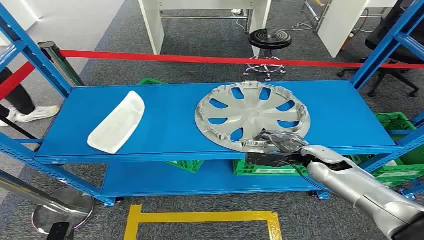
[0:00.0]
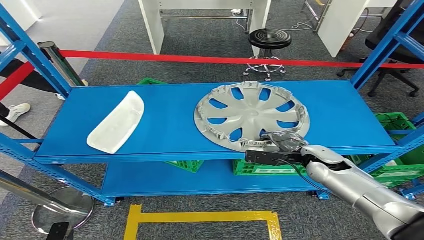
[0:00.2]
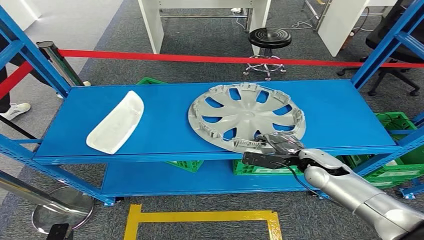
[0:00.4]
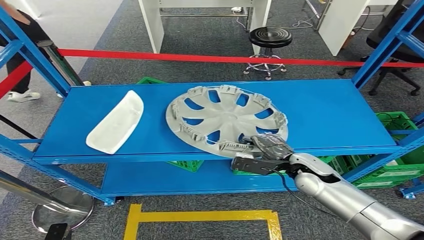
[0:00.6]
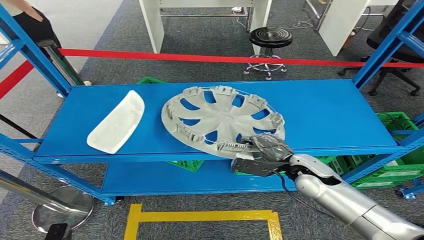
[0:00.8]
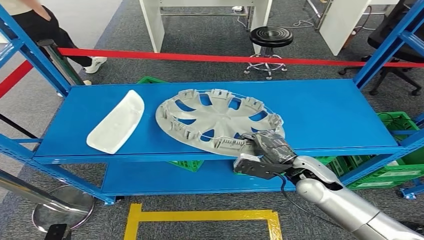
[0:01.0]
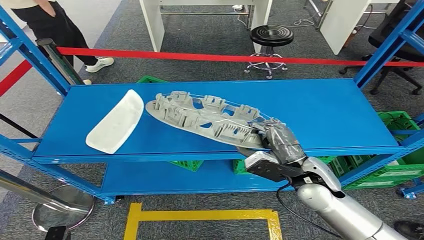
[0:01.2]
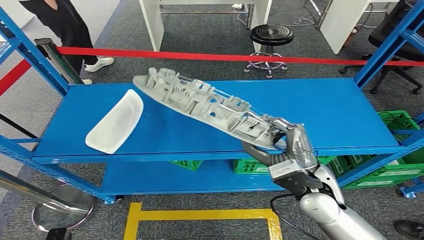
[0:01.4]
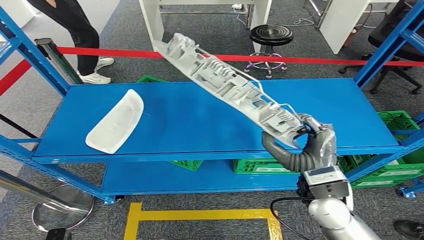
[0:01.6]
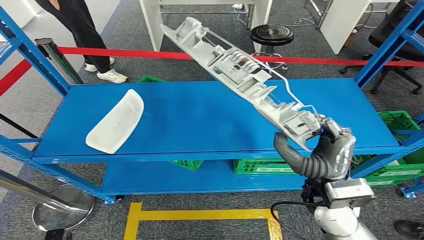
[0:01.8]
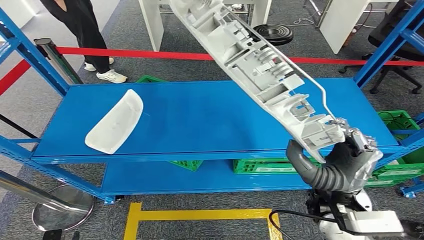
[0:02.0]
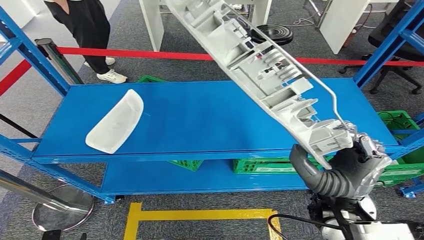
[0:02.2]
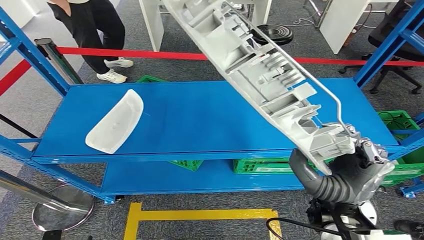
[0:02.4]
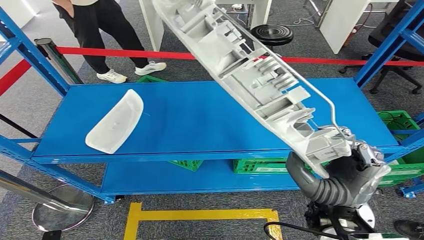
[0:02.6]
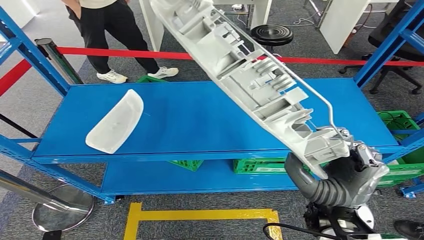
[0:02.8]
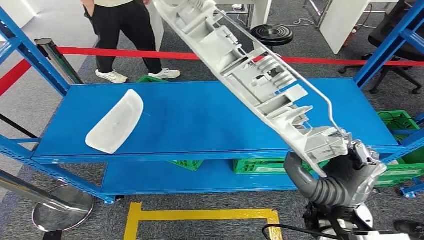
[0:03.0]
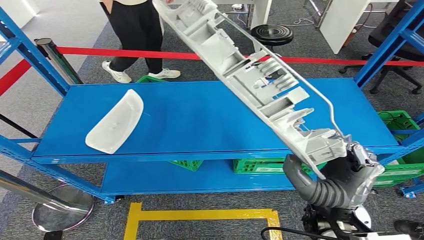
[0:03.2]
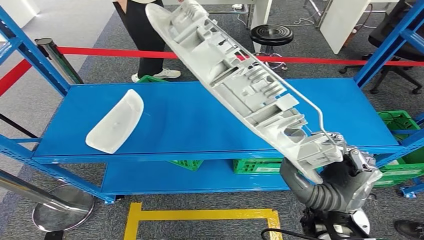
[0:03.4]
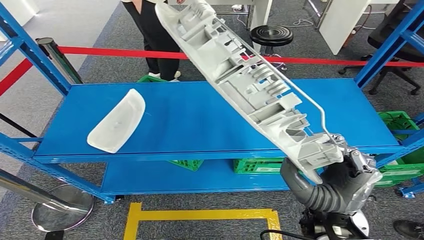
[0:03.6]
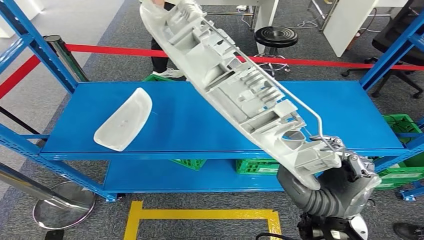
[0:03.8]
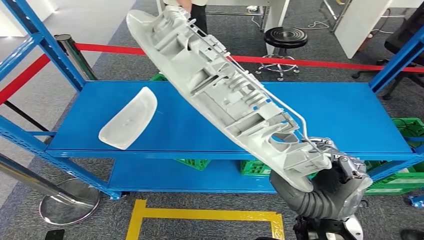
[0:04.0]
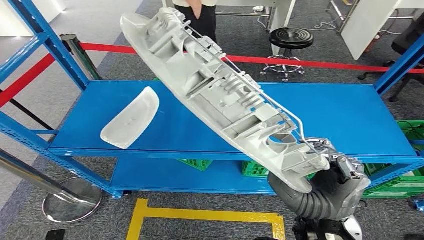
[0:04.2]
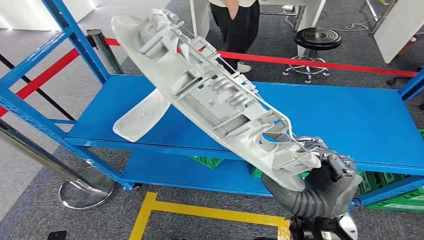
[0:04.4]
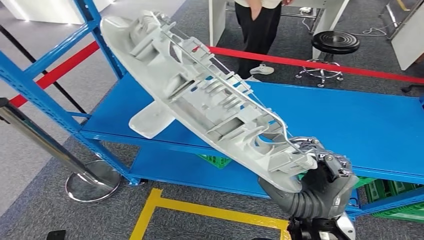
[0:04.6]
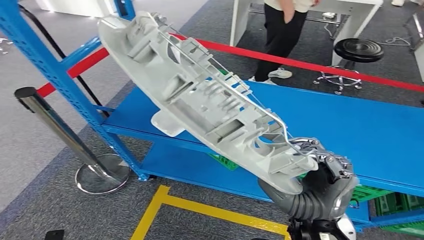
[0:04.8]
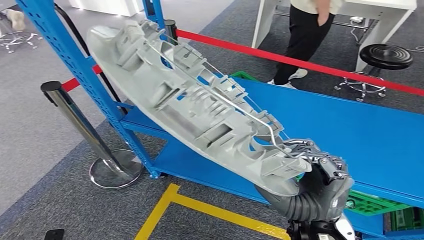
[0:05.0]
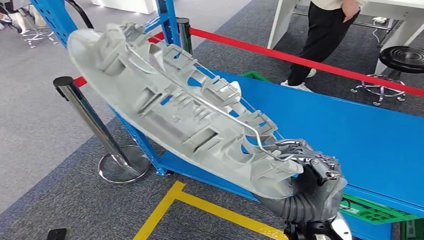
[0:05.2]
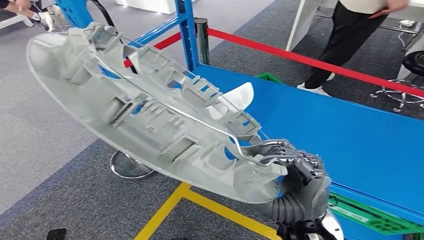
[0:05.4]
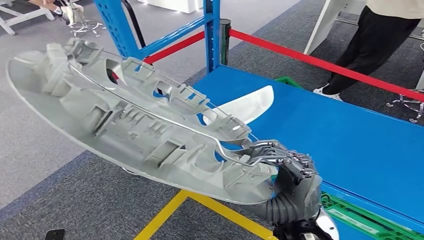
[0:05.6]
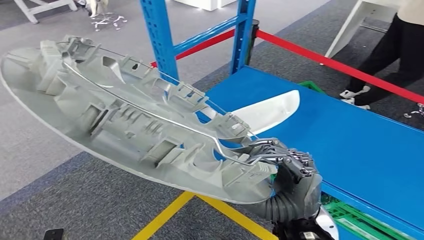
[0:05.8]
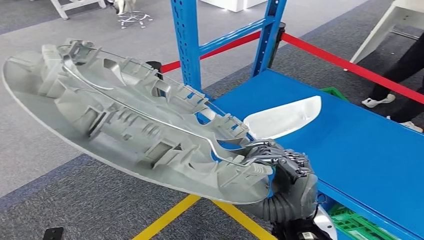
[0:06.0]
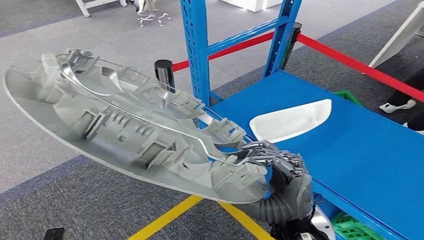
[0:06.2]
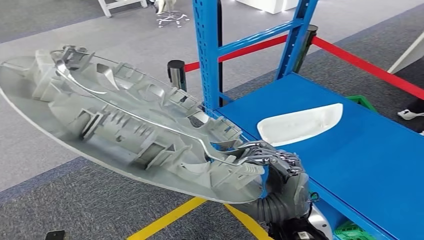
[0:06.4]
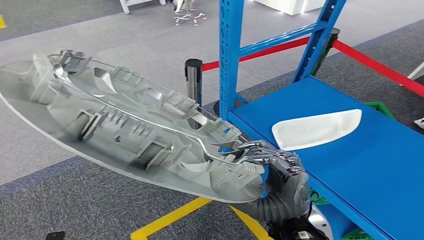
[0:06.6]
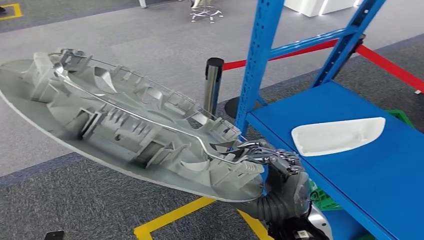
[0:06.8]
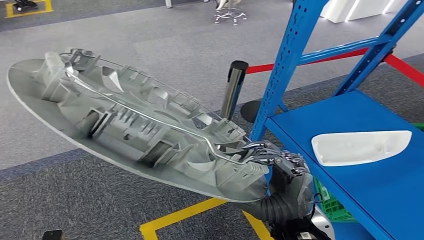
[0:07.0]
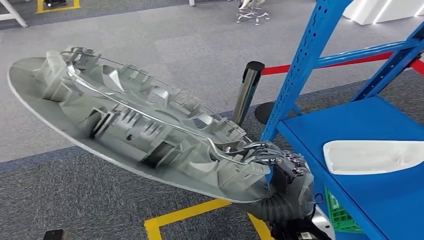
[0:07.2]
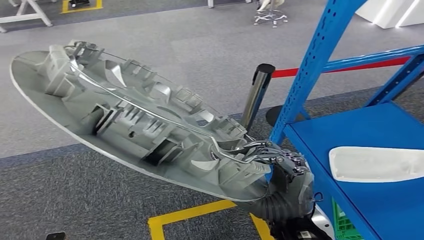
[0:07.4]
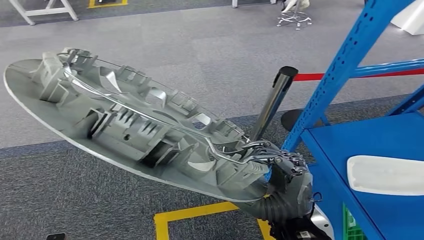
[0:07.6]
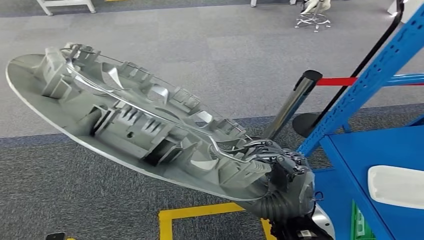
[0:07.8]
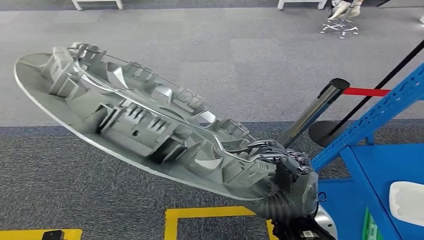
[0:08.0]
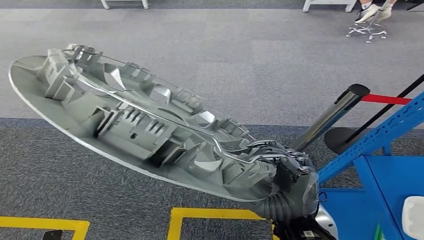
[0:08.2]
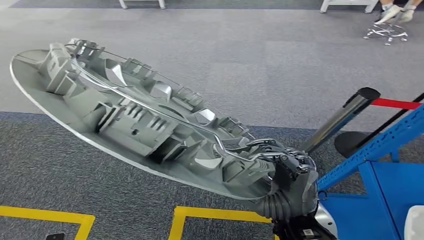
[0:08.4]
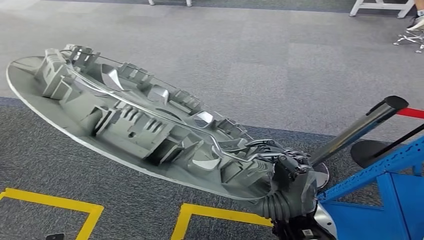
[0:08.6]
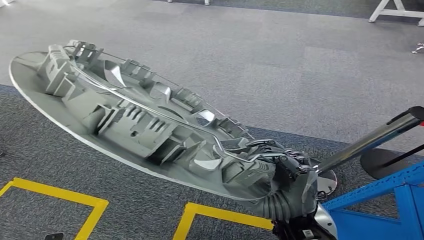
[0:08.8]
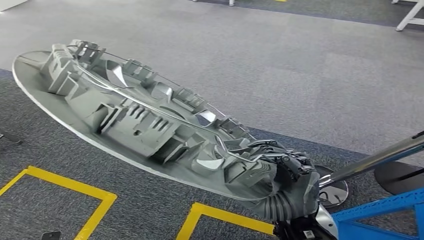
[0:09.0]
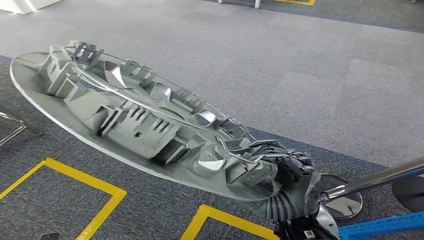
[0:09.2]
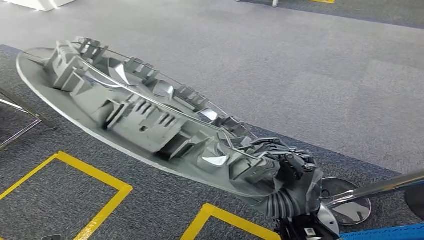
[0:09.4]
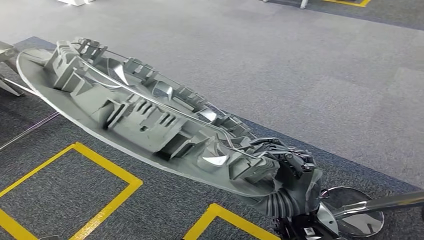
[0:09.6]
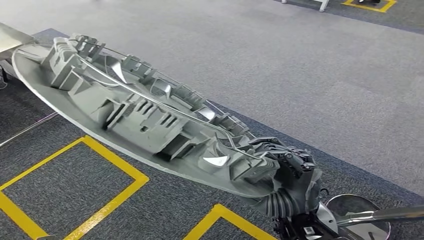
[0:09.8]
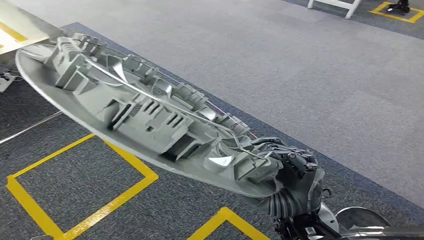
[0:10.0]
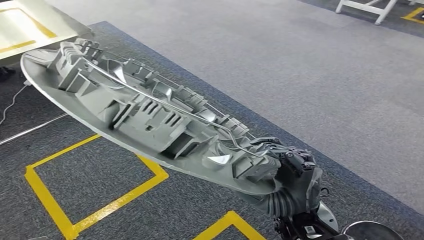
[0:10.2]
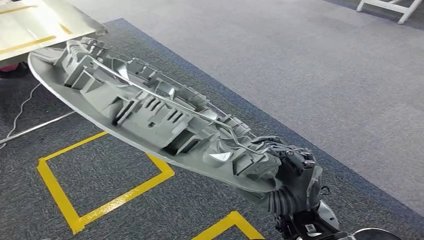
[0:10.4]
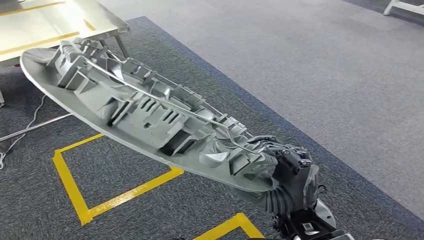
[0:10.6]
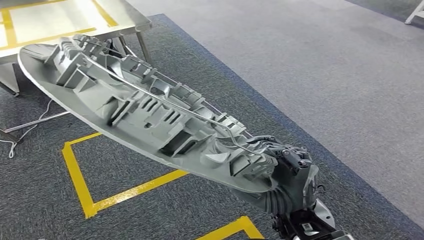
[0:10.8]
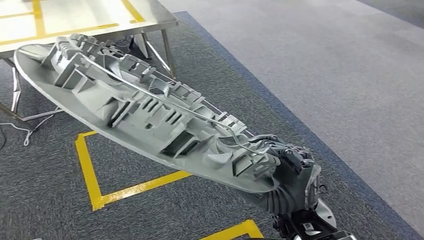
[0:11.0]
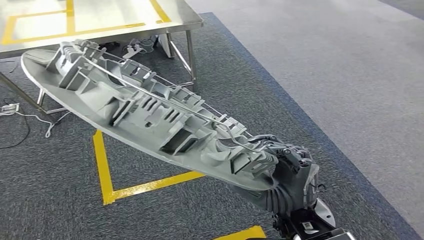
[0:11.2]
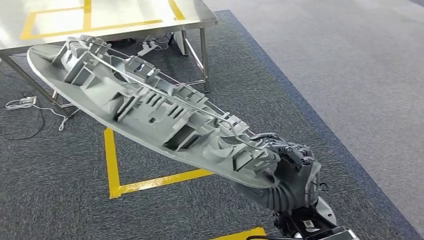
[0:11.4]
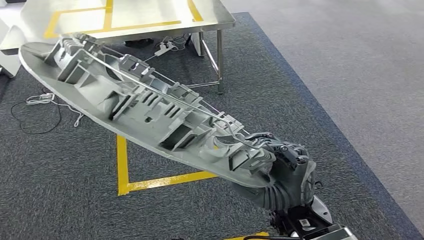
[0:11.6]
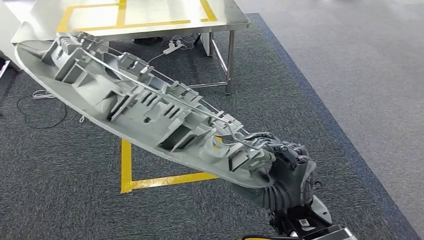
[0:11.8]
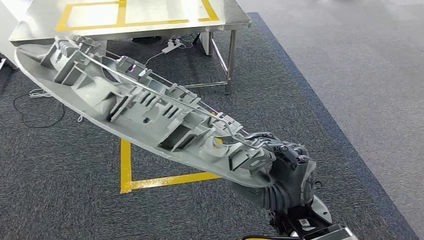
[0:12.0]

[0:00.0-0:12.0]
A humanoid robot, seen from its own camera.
Step, 0:00.0 to 0:02.6: Pick up the small component from the shelf.

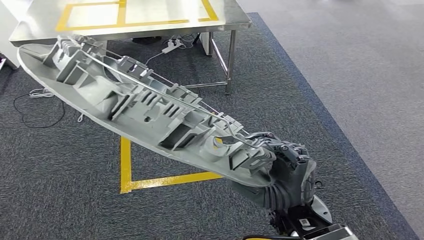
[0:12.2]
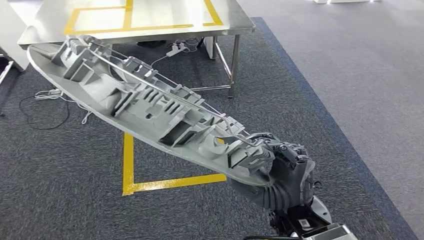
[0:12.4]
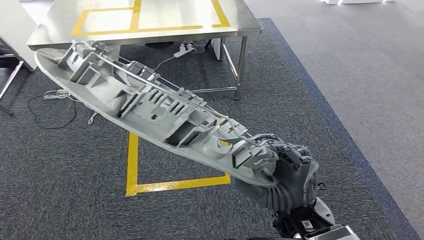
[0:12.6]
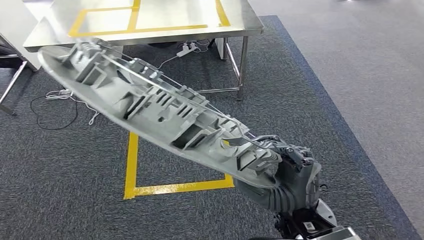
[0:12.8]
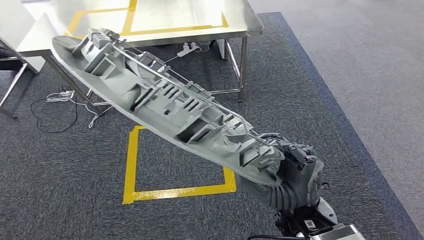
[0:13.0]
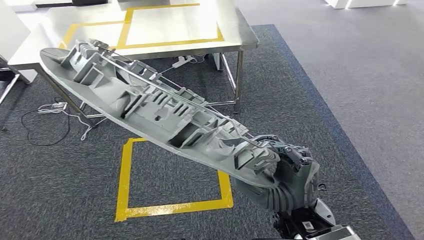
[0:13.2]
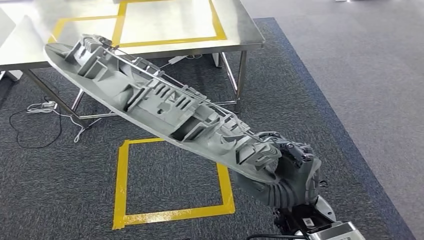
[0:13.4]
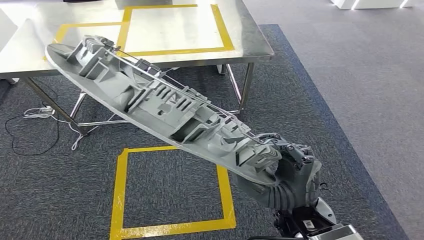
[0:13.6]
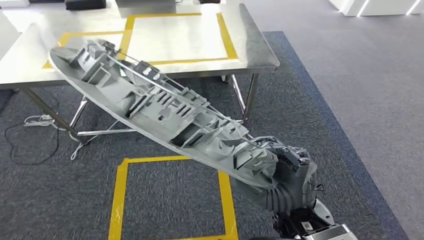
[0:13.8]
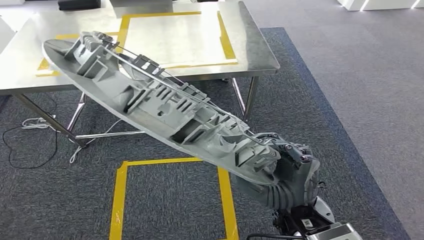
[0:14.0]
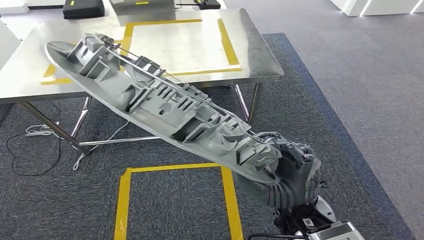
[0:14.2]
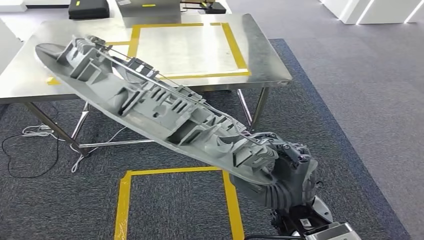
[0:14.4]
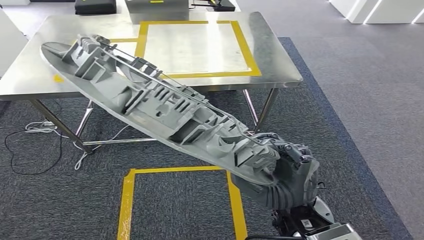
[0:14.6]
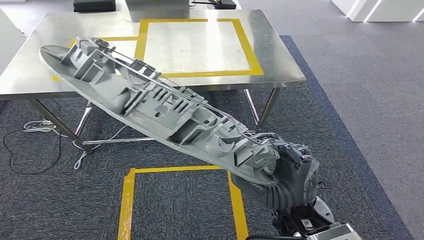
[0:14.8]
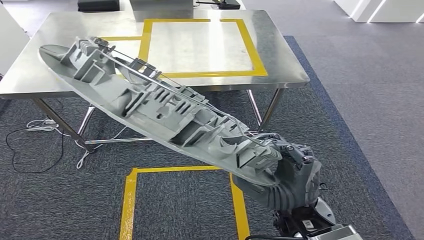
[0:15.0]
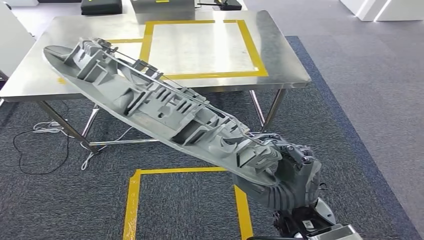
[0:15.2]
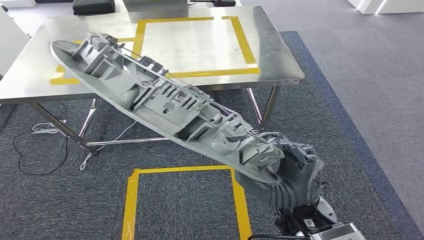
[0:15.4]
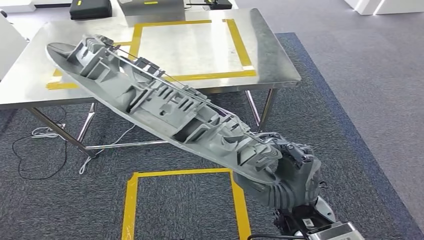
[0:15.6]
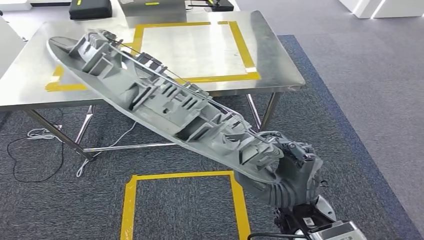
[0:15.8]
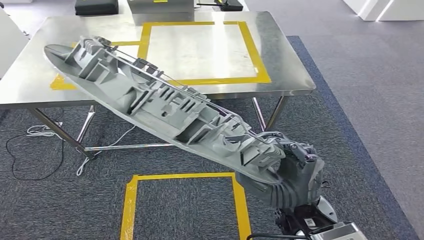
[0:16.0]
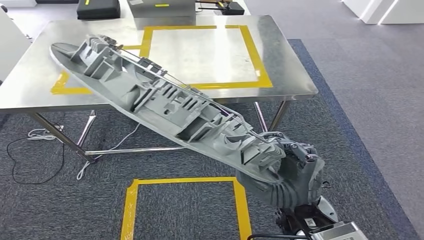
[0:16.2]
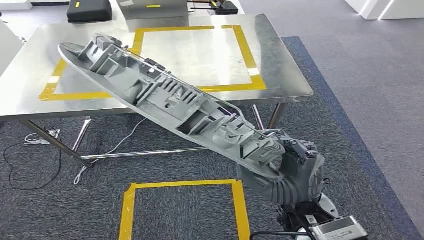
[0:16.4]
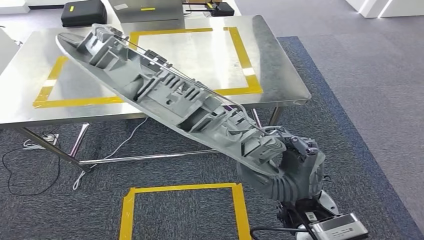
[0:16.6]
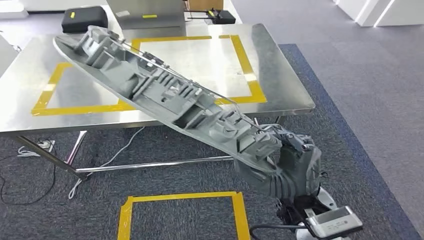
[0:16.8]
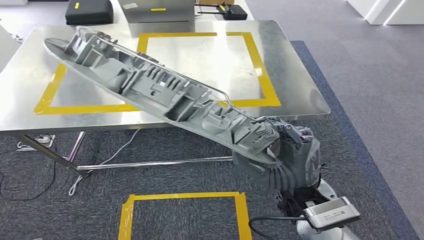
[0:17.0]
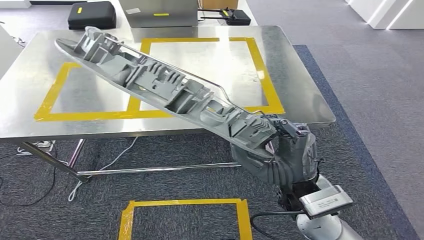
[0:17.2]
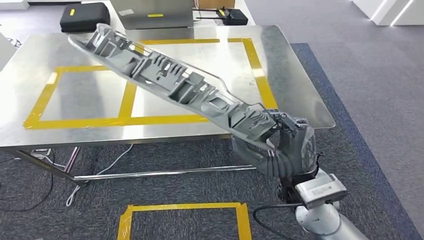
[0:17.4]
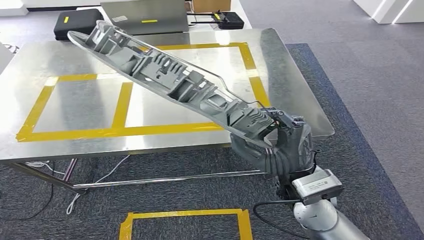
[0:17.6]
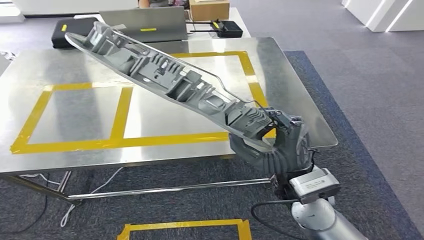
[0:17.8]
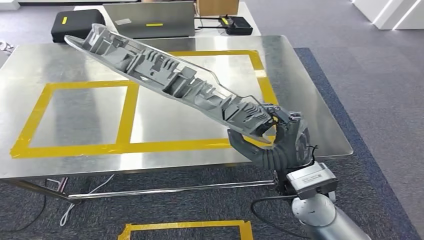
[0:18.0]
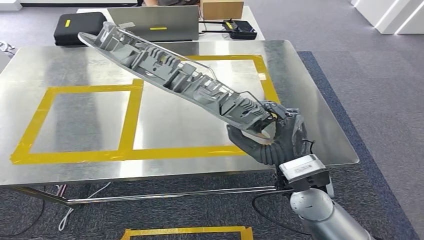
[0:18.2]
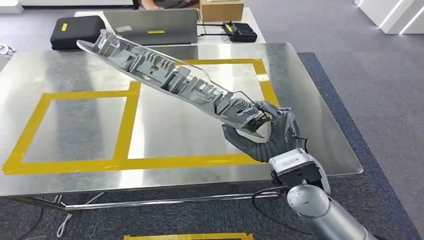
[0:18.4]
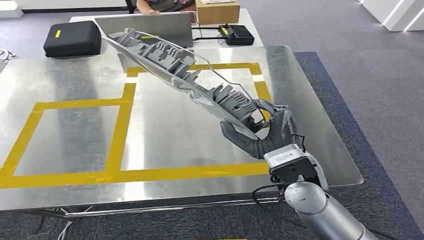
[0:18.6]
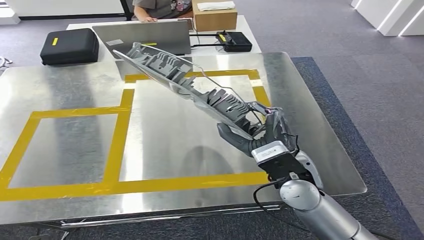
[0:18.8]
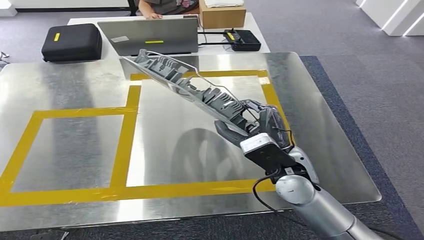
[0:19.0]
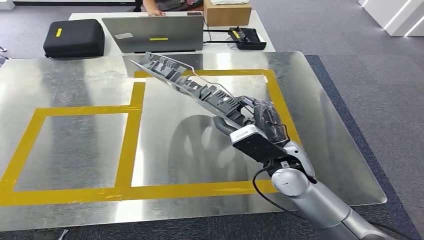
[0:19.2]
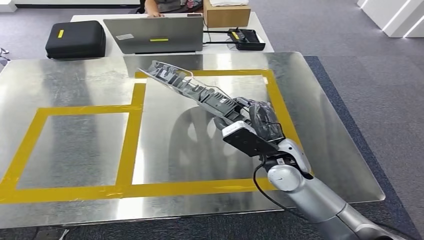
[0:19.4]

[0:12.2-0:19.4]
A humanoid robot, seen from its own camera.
Step, 0:12.2 to 0:17.4: Move the small component to the workbench.
